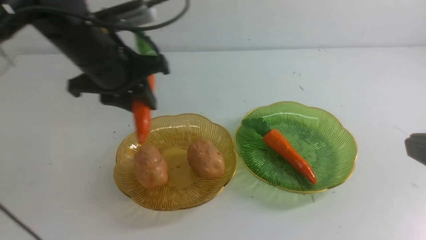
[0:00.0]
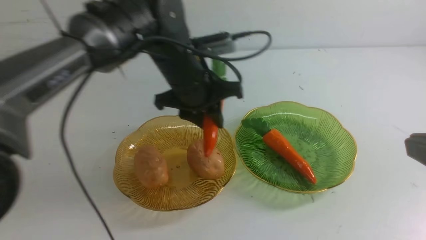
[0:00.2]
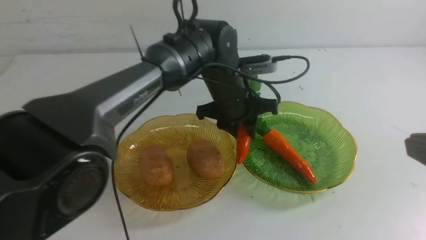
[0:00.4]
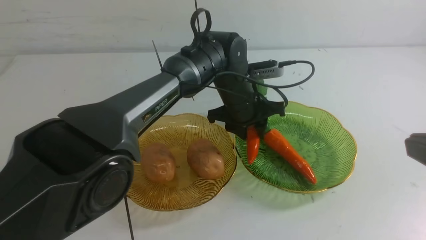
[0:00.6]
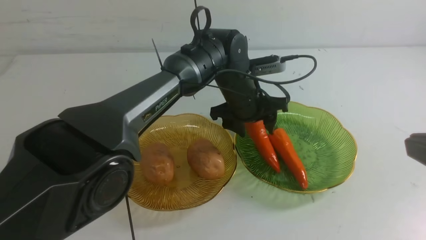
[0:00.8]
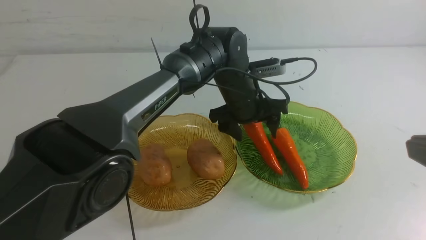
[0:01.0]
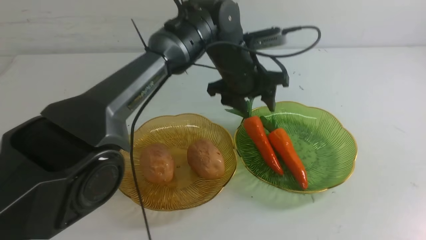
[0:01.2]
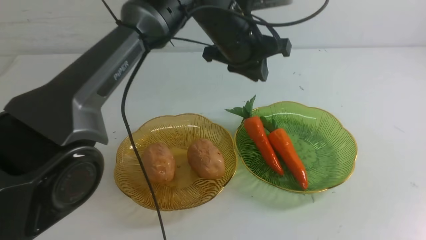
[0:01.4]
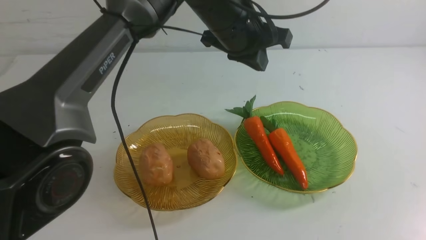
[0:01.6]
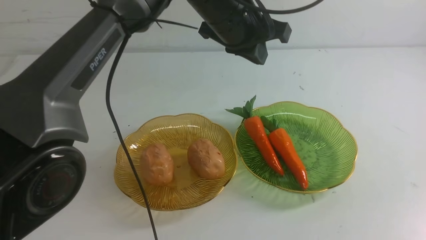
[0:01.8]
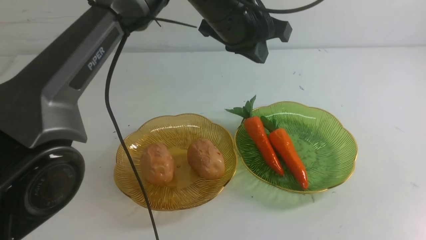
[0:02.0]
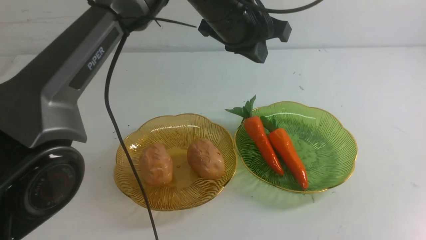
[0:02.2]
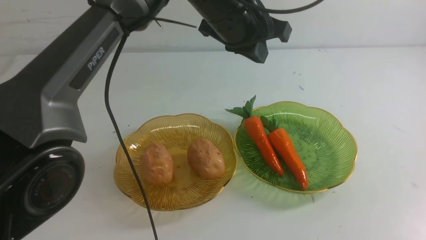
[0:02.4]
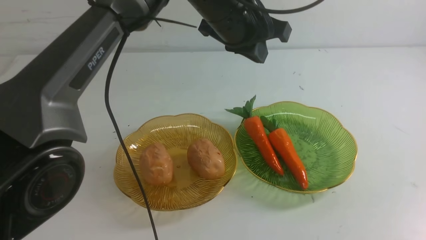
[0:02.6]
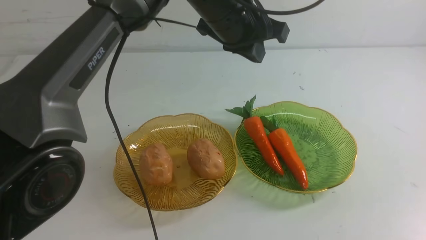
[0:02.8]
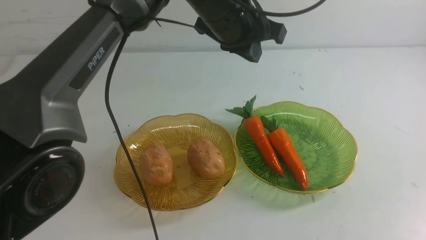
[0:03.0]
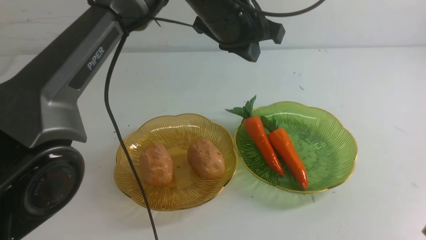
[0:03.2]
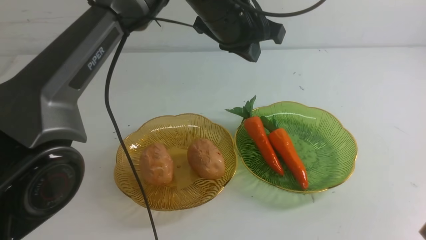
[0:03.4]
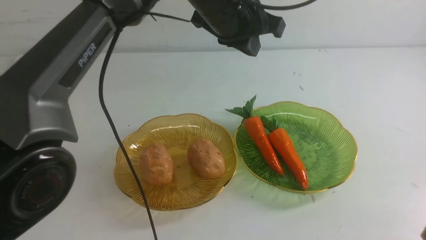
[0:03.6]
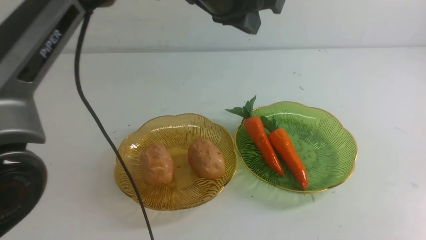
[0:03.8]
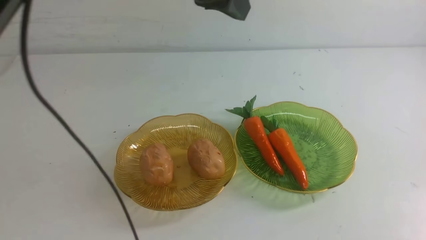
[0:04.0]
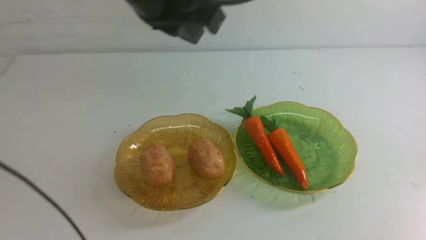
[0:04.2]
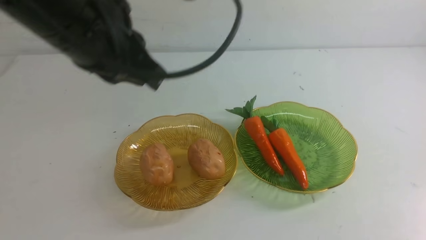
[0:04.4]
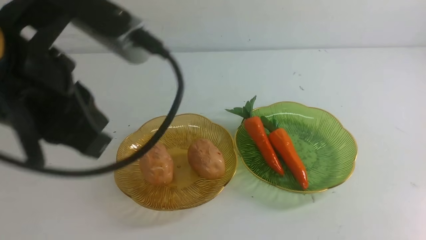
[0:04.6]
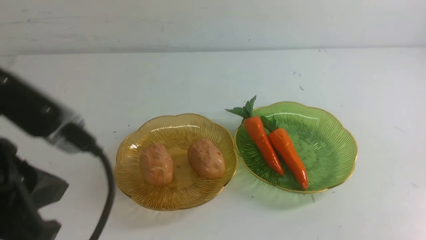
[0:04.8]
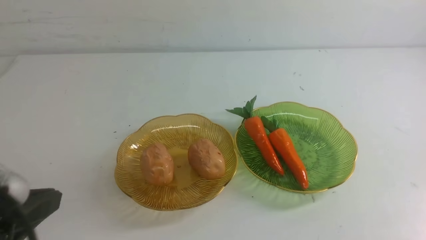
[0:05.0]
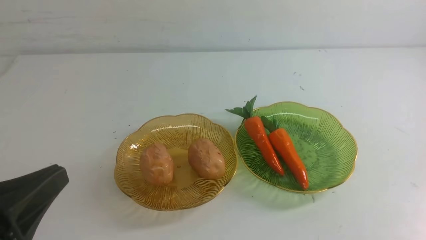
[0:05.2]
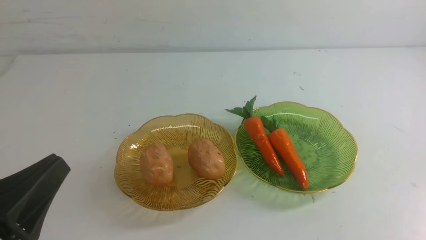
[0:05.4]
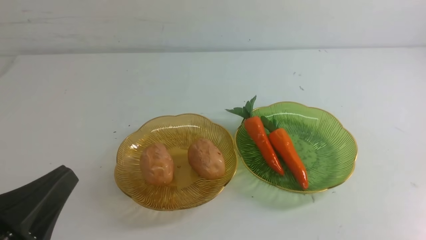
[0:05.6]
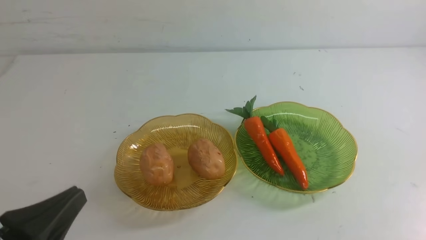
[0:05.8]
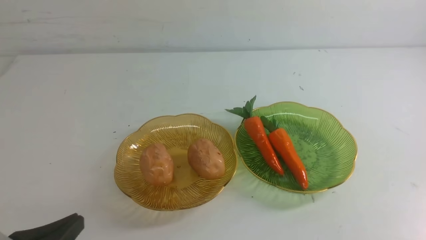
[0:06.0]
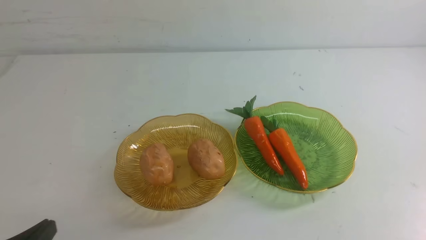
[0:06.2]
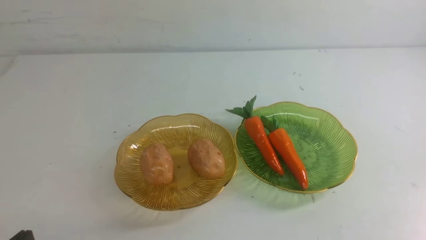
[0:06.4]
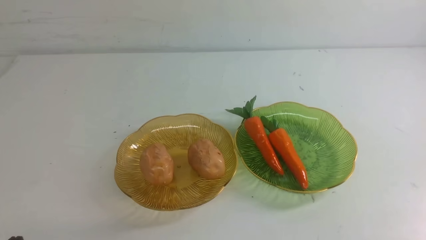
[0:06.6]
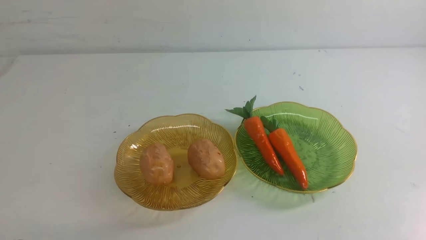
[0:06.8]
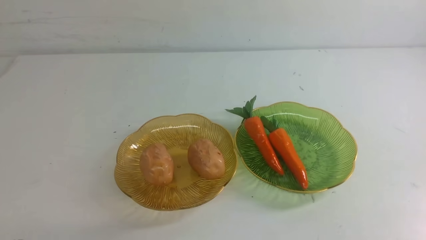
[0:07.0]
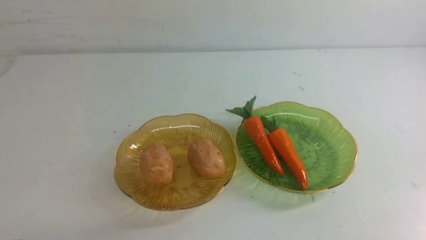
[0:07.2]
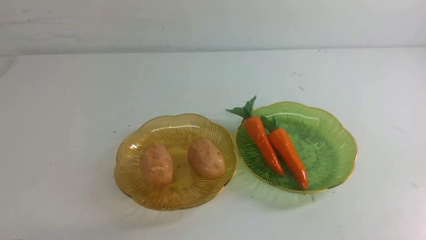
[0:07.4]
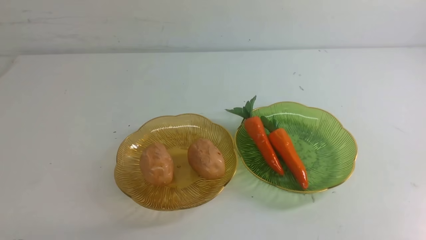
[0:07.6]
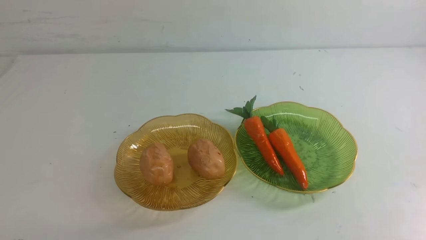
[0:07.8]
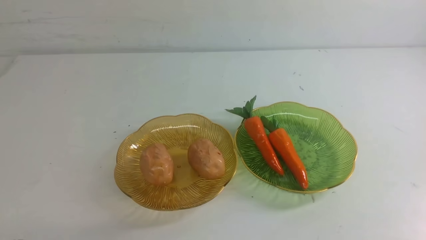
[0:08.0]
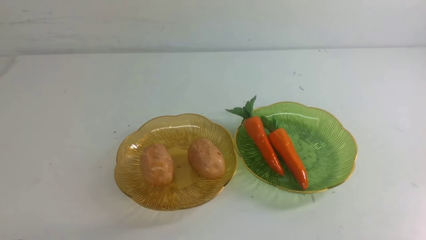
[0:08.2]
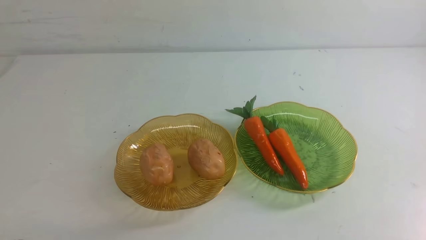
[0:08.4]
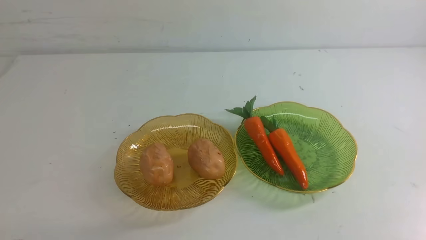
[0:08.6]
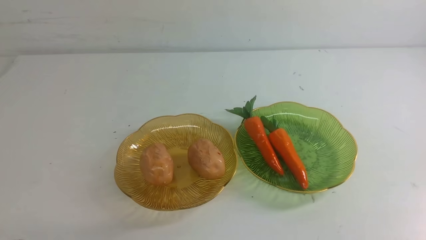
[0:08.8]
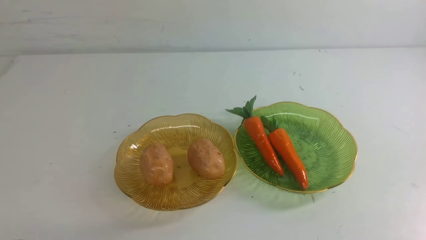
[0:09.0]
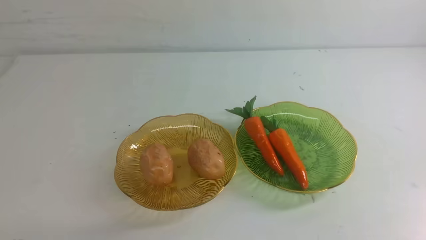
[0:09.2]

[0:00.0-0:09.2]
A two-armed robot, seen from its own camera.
0:00.0 to 0:01.6: The right gripper travels backward and to the right by approximately 10 cm; the left gripper moves to the right, approximately 10 cm, goes downward and returns, roughly 10 cm each way, and opens and closes again.
0:01.6 to 0:03.0: The right gripper changes place by about 5 cm.
0:03.0 to 0:04.6: The left gripper is displaced backward and to the left by approximately 30 cm. Meanwhile the right gripper shifts about 10 cm downward.
0:04.6 to 0:06.2: The left gripper shifts about 25 cm downward and backward.
0:07.6 to 0:09.2: Both grippers stay put.
